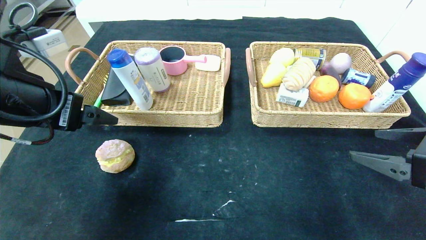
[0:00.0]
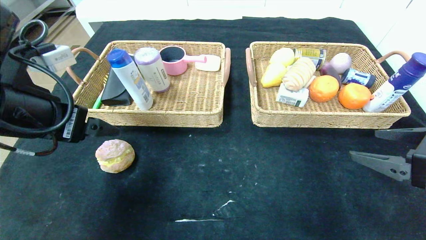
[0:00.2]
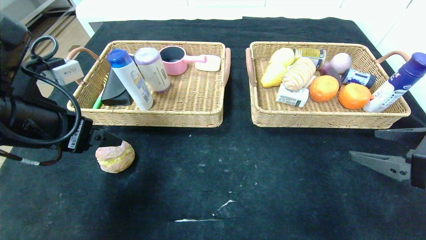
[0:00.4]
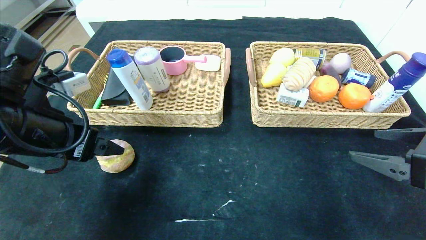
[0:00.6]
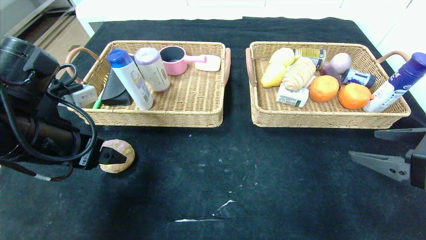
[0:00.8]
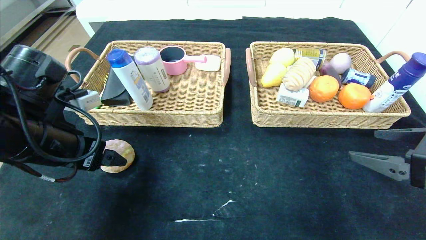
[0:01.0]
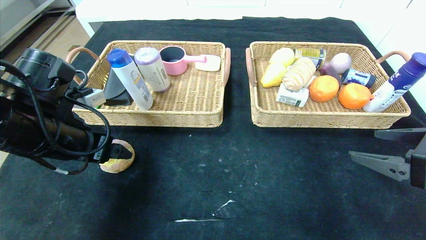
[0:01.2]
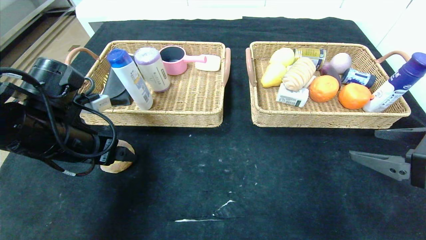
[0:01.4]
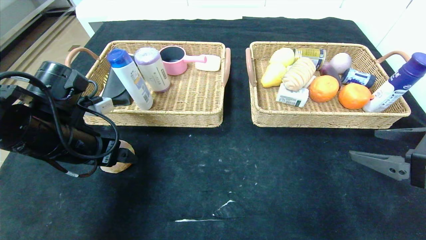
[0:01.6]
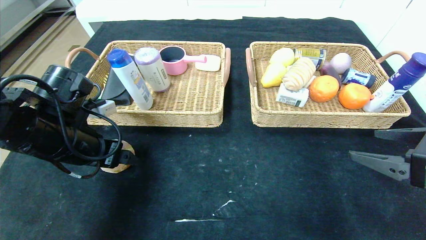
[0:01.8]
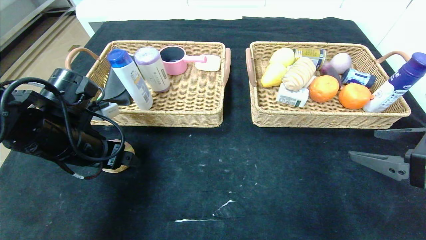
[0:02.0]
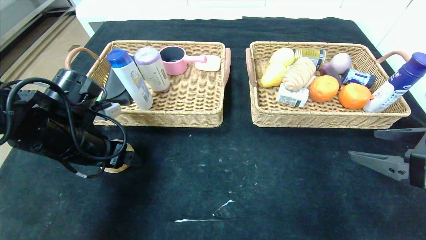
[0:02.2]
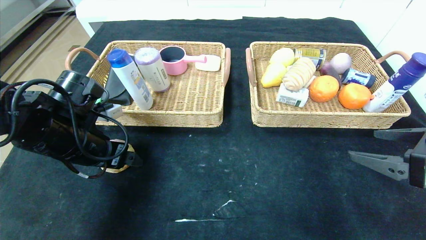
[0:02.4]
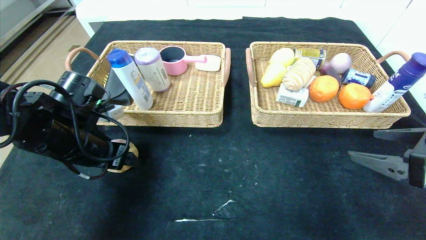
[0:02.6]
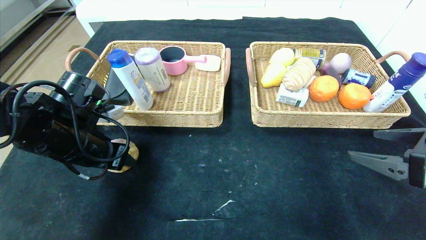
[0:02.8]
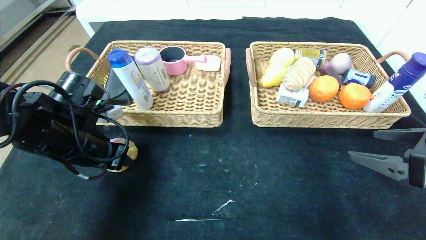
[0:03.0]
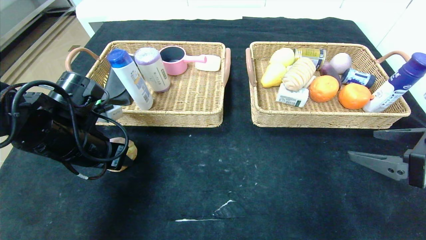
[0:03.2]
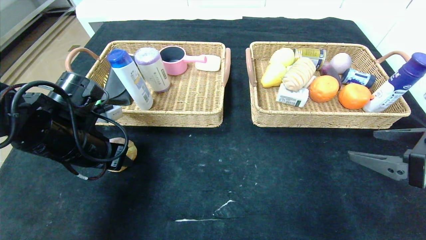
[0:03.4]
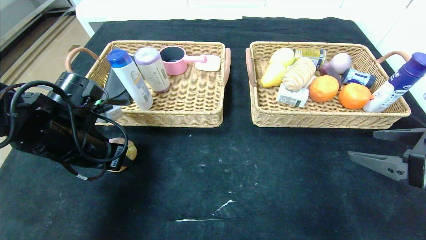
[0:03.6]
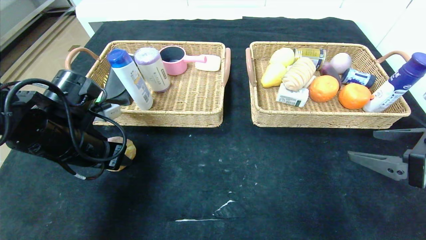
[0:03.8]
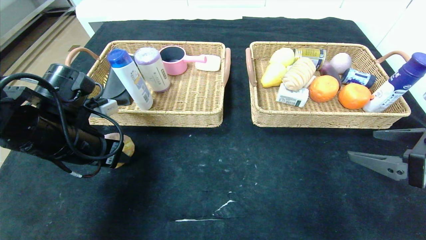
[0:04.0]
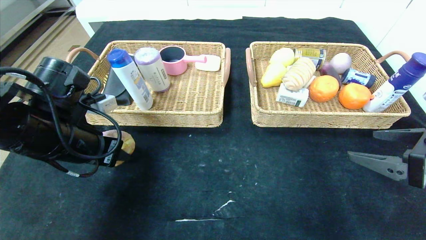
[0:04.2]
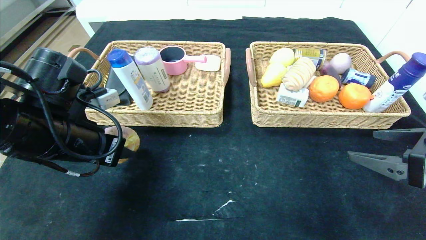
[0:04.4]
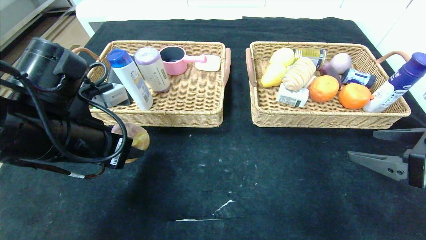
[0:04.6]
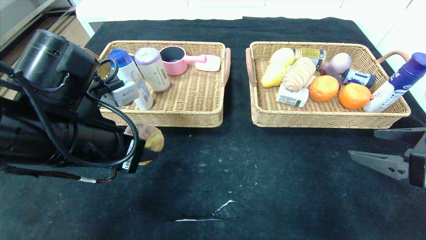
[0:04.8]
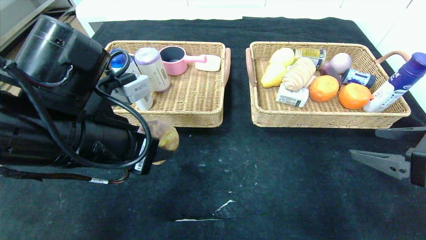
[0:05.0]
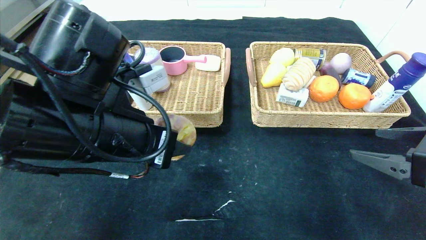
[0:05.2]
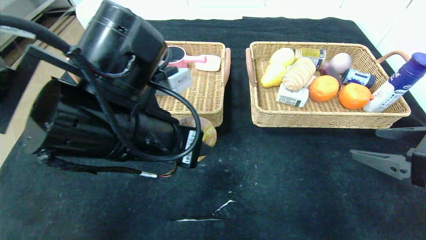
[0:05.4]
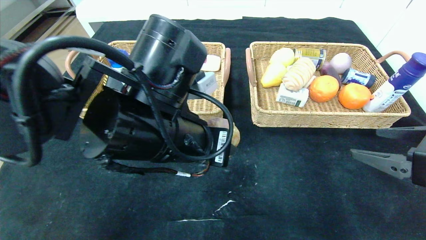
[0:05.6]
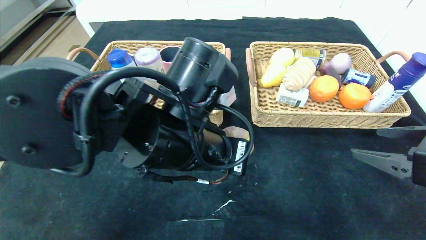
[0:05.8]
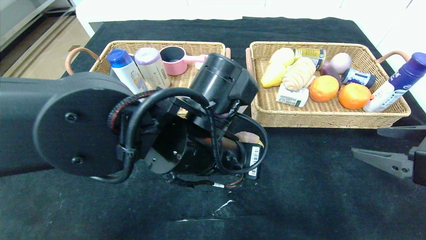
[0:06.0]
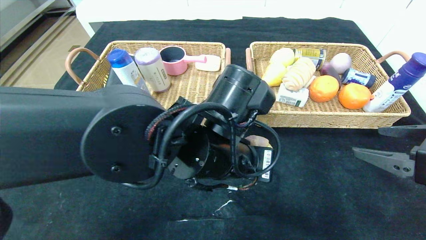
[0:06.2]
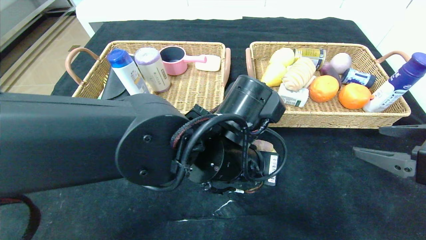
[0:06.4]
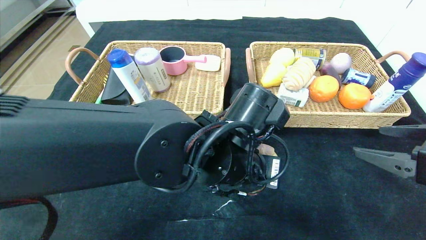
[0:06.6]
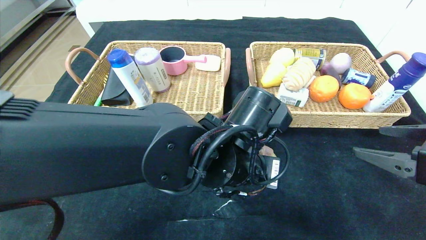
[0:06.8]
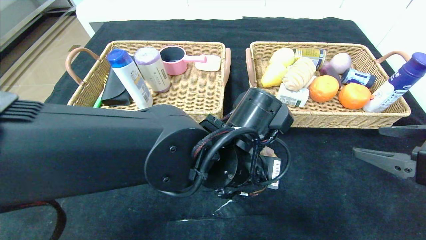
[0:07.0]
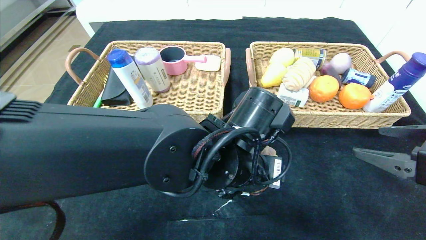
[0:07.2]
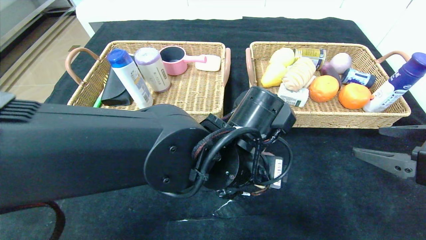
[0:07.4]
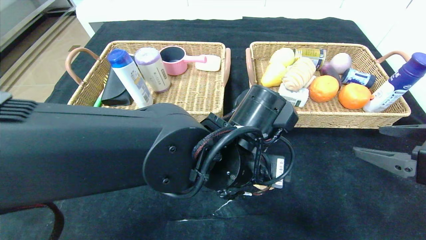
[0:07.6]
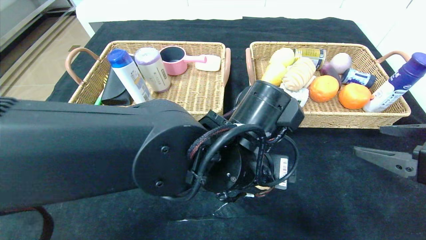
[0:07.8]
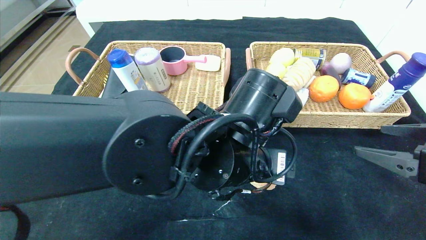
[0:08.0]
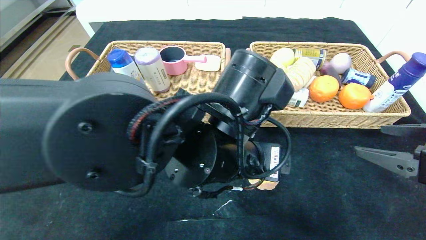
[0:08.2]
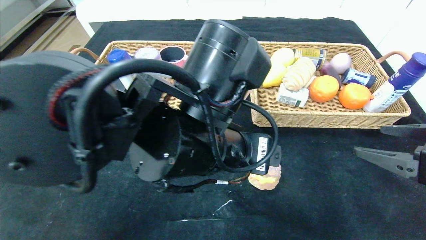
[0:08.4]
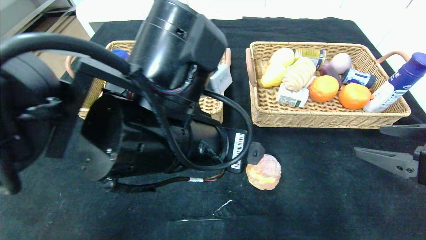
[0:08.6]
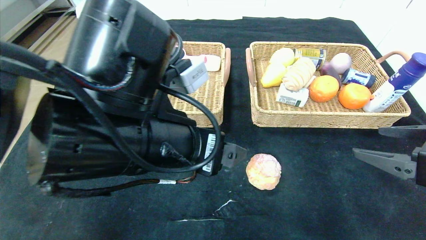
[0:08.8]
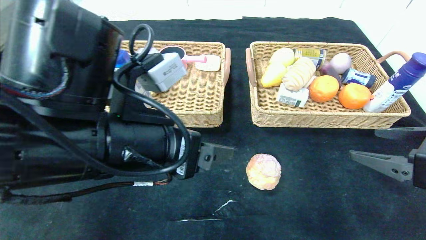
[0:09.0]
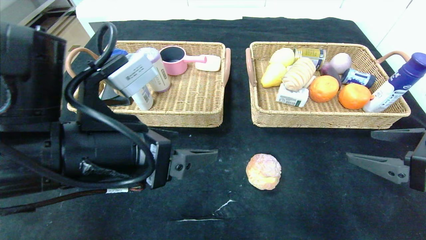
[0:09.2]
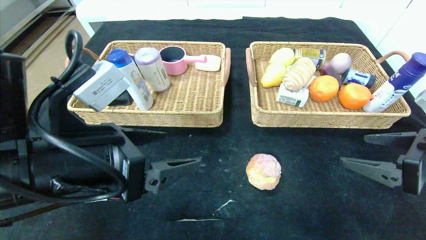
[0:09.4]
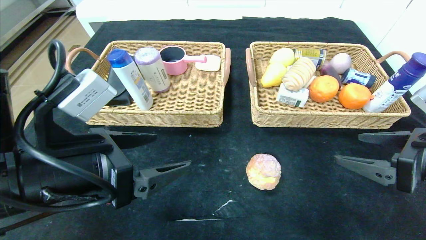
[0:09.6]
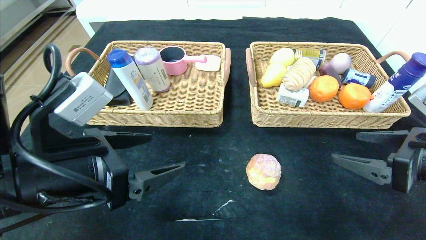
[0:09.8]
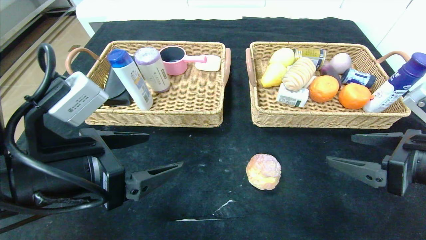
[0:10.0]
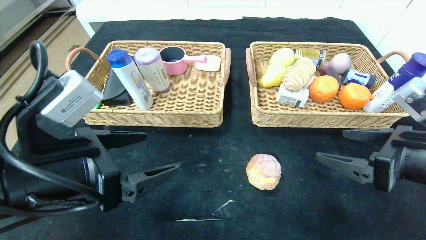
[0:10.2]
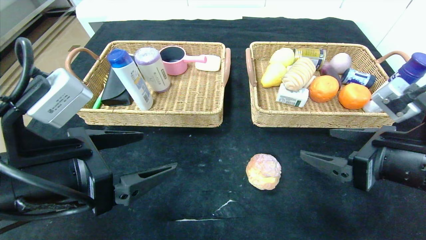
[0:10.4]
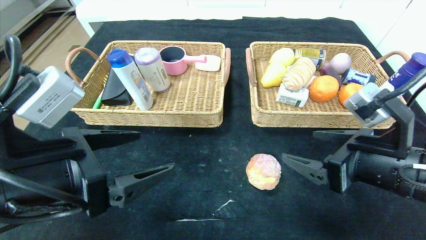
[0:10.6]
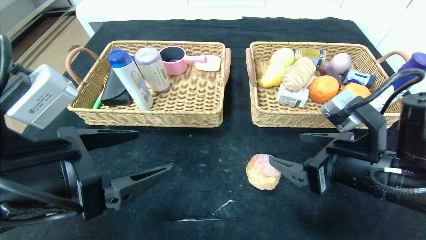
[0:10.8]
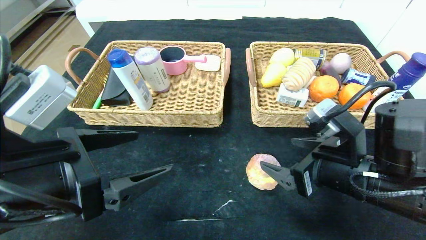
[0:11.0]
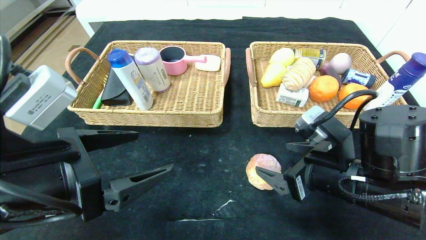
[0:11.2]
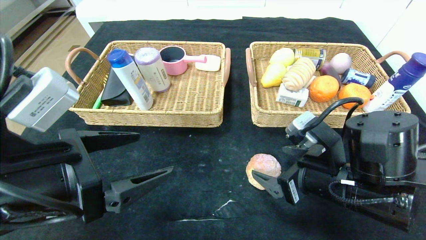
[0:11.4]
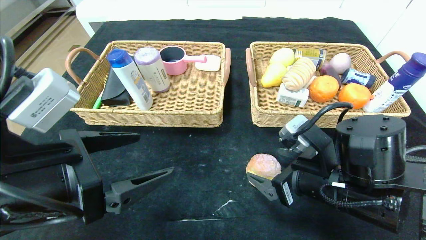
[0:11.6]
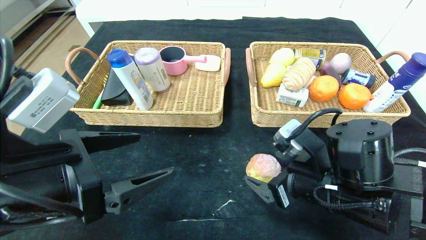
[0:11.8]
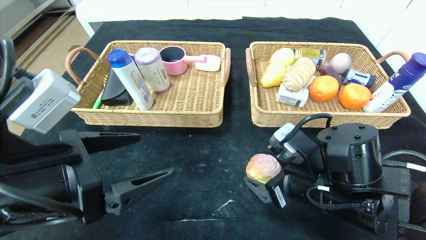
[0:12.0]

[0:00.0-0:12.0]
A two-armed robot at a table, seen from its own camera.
Step, 0:00.4 to 0:08.6: Place the round bread in the center of the table.
0:00.0 to 0:01.6: The left gripper travels downward and forward by some 10 cm.
0:01.6 to 0:03.0: The left gripper closes.
0:03.0 to 0:04.4: The left gripper changes place by some 5 cm.
0:04.4 to 0:06.0: The left gripper goes about 20 cm to the right.
0:06.0 to 0:07.6: The left gripper changes place by approximately 5 cm, and opens up.
0:07.6 to 0:09.0: The left gripper travels to the left and upward by about 15 cm.
0:09.0 to 0:10.4: Both grippers move to the left, approximately 10 cm.
0:10.4 to 0:12.0: The right gripper is displaced to the left and downward by some 10 cm.

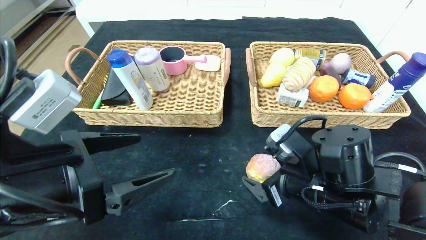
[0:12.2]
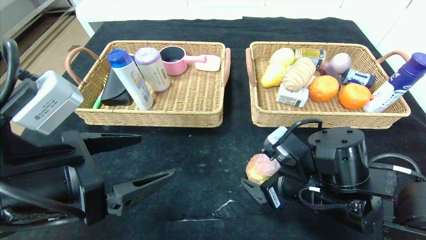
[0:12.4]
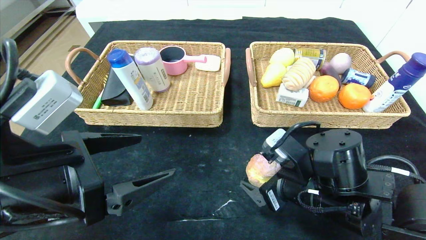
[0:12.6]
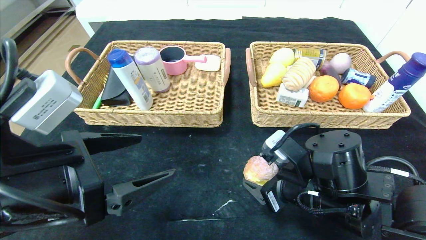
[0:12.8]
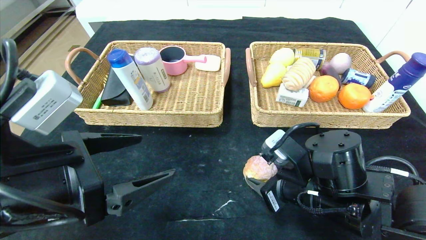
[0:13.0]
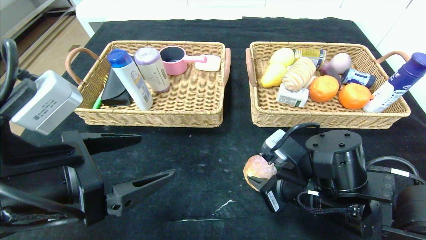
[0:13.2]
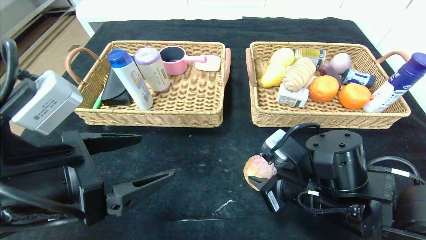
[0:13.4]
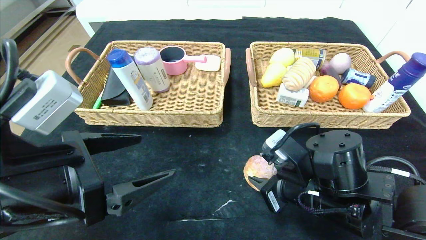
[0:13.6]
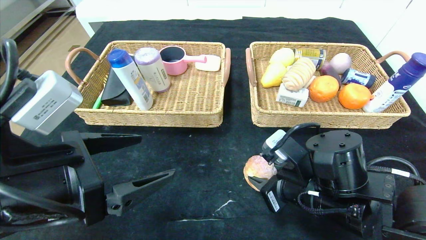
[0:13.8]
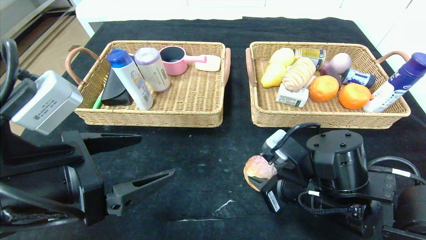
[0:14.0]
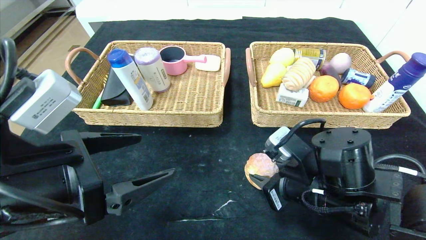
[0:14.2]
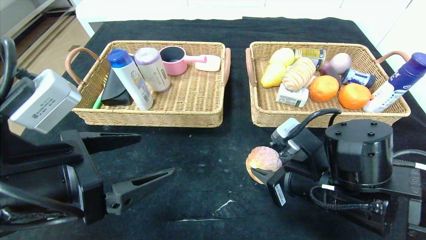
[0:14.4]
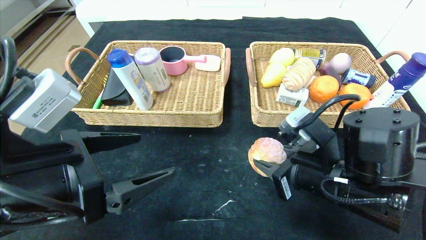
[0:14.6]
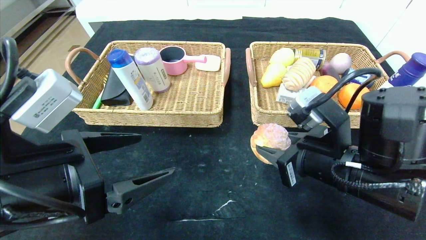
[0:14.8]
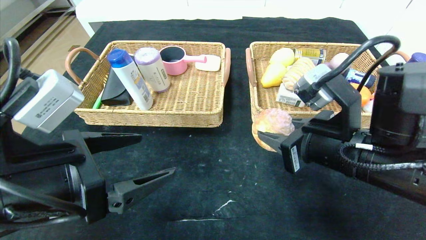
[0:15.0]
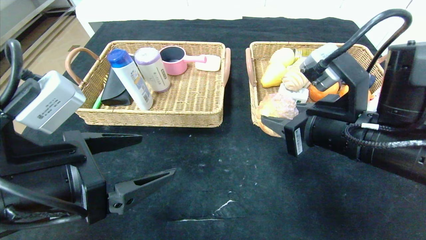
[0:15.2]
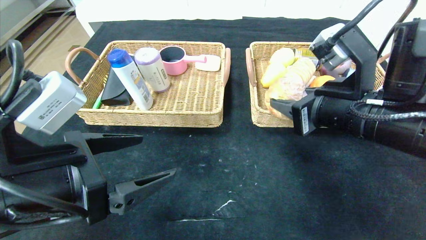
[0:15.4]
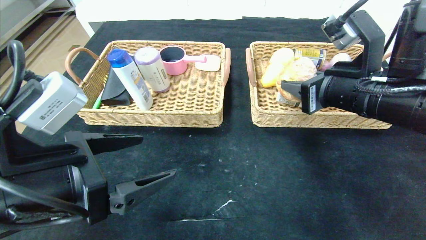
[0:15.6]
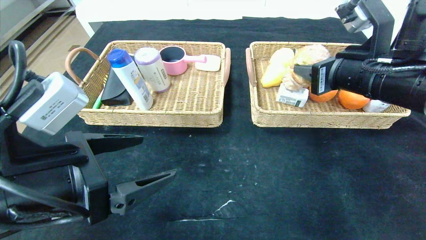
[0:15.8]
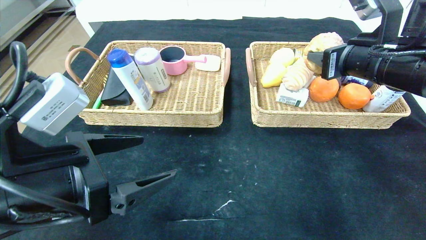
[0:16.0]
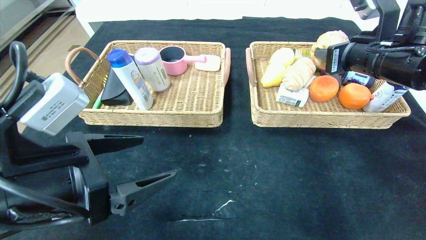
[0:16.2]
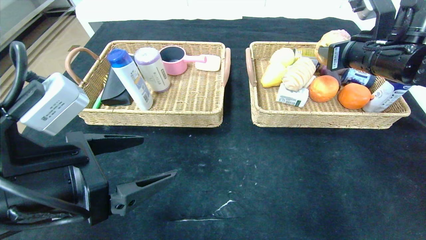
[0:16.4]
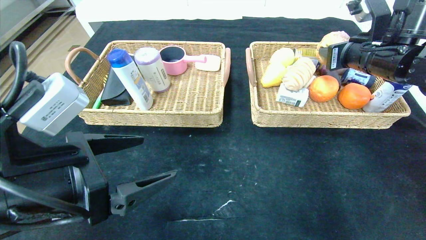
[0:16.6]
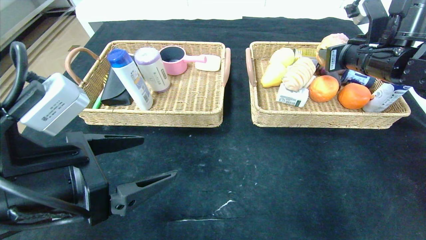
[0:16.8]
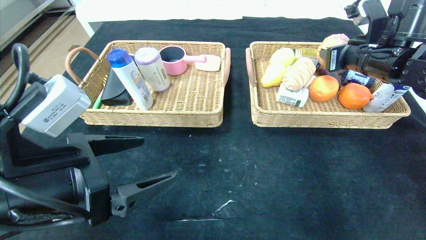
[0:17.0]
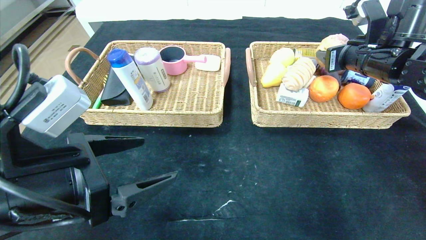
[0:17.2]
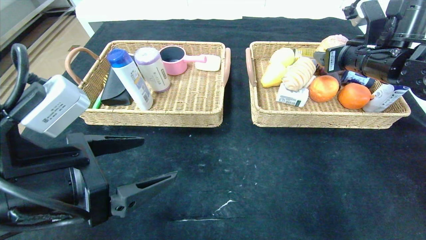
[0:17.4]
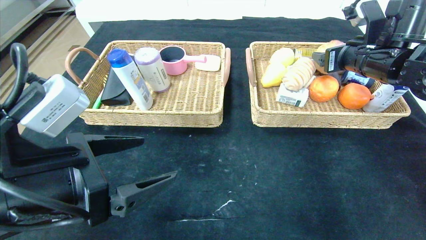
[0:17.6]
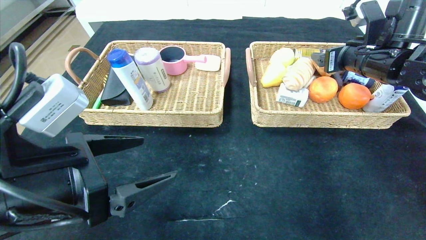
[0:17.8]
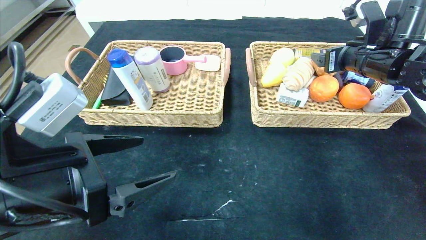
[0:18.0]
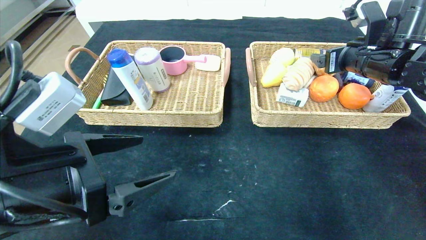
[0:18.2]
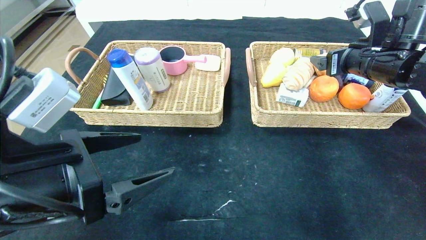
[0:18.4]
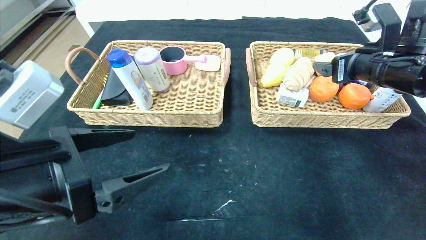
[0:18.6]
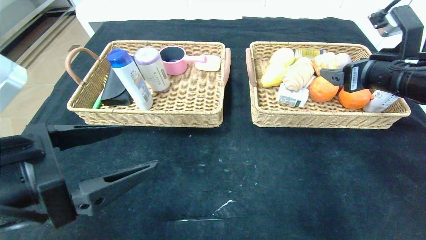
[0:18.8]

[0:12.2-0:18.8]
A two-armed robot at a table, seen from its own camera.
0:12.2 to 0:13.8: The right gripper closes.
0:13.8 to 0:15.4: The right gripper travels upward by about 15 cm.
0:15.4 to 0:17.2: The right gripper goes approximately 15 cm forward and to the right.
0:17.2 to 0:18.8: The right gripper travels backward by approximately 10 cm.
